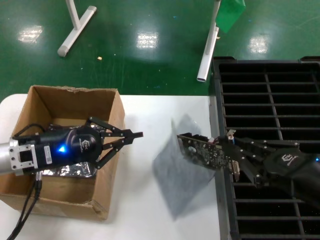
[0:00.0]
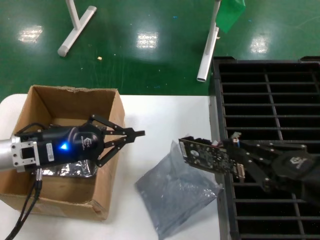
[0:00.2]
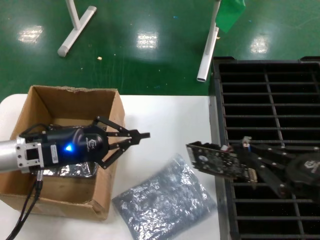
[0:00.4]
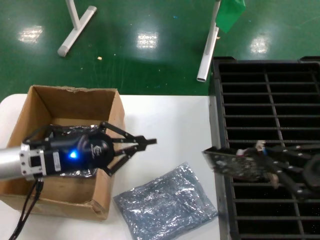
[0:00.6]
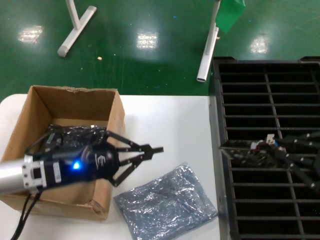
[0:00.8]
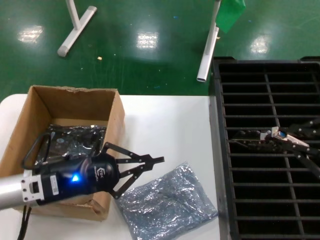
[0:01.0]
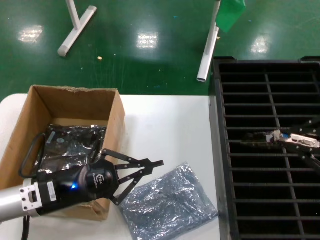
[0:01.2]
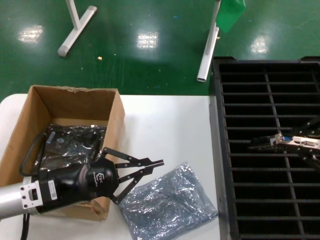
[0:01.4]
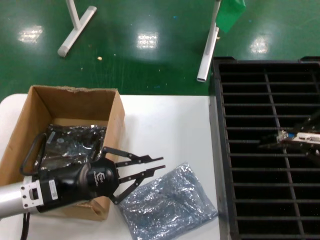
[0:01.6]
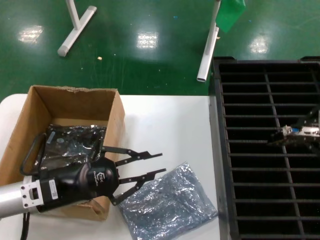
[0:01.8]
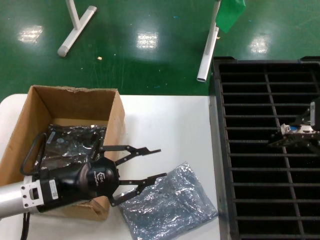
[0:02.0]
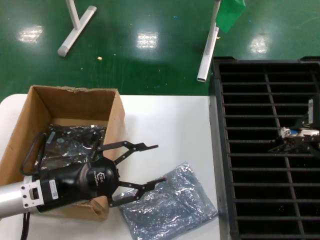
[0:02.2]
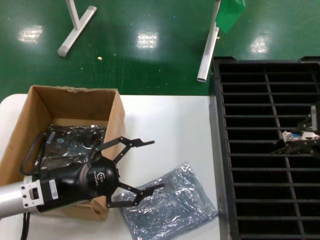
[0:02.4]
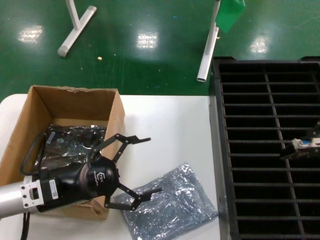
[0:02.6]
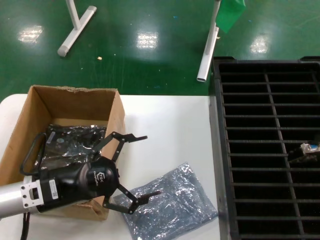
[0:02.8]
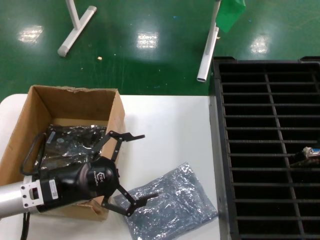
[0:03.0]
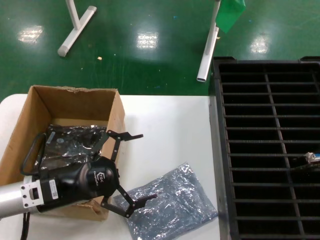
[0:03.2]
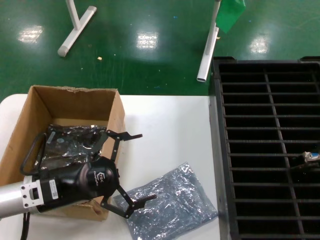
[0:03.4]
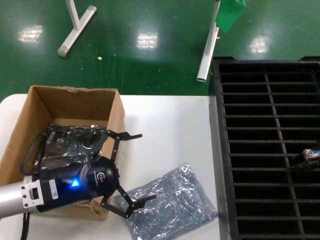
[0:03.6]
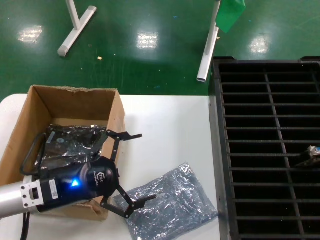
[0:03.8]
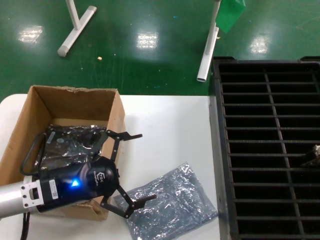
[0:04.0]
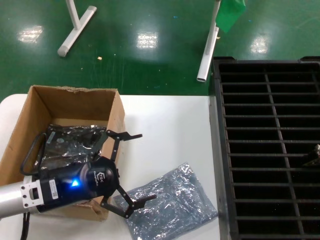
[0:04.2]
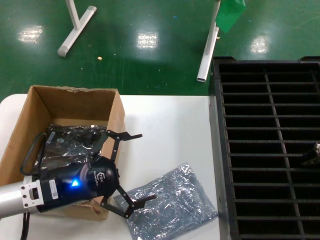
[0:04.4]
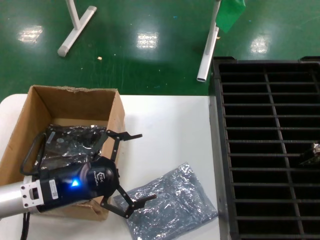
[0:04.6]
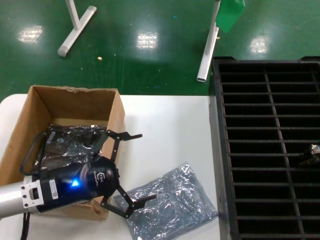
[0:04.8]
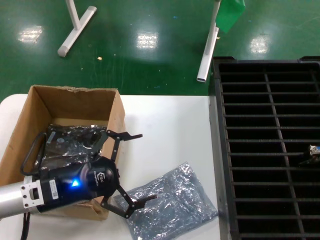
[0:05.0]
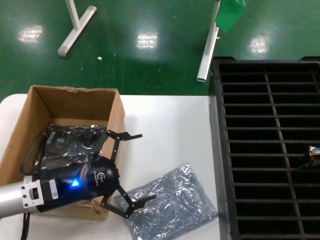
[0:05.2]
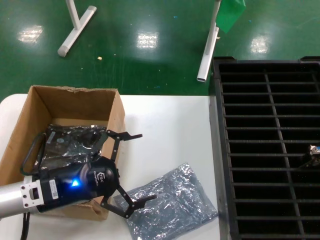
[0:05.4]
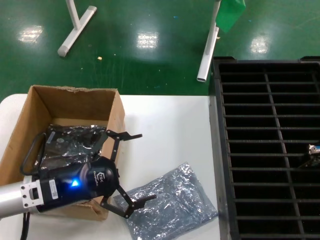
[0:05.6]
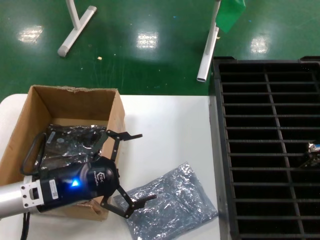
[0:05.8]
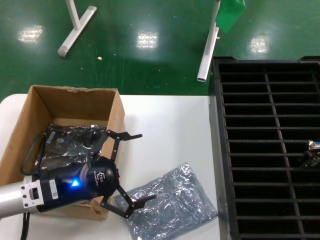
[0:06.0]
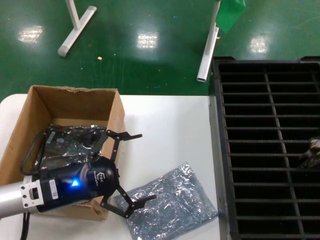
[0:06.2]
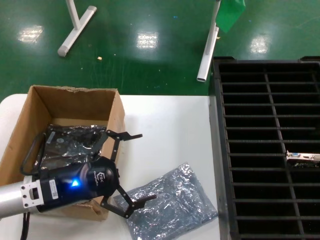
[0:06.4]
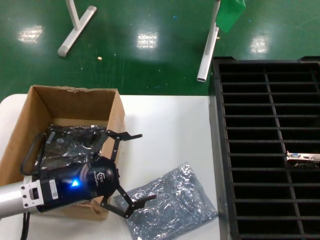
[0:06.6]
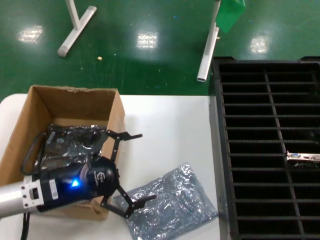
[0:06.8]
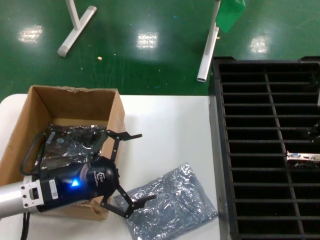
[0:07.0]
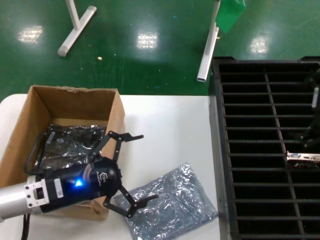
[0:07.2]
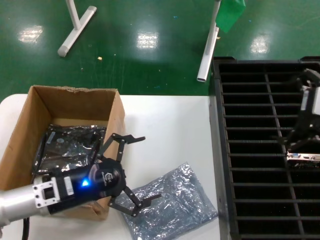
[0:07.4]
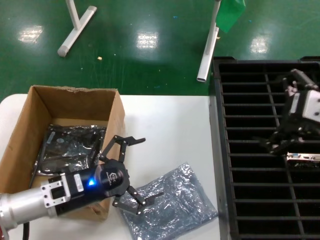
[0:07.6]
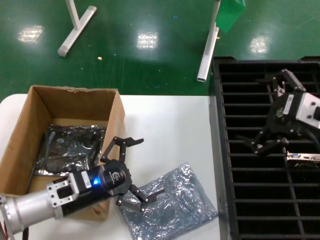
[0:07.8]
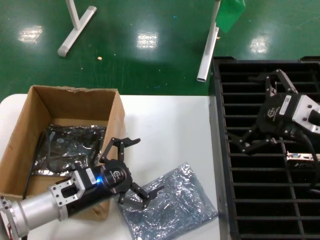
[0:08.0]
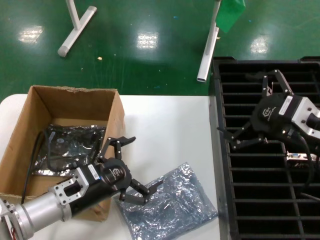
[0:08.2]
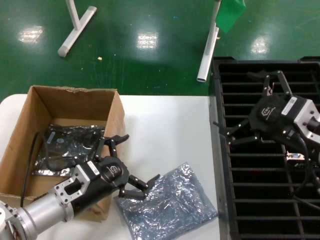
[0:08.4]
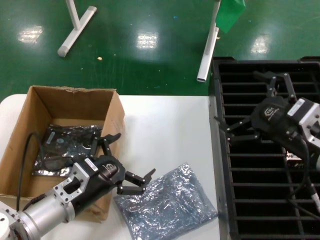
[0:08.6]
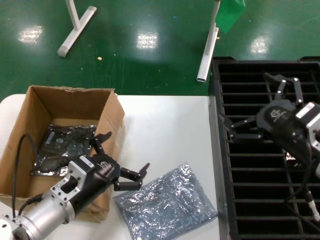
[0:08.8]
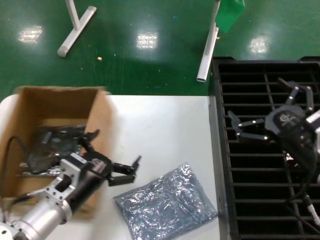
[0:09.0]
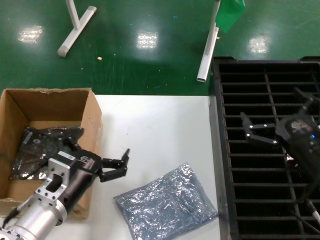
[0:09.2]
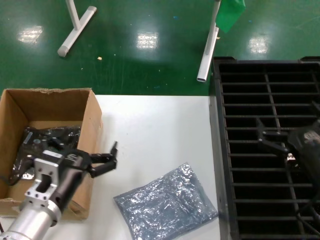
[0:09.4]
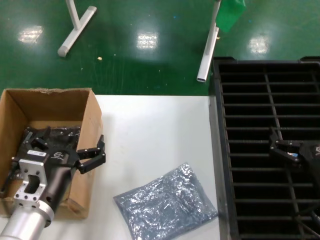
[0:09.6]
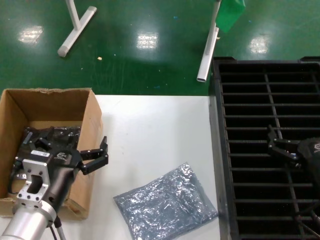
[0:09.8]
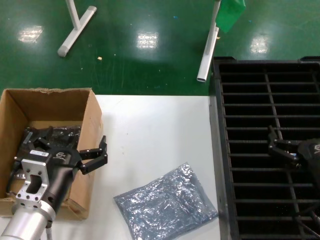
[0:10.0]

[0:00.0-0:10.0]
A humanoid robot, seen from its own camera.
Task of the whole recording: take out graphics card from box remove packaging put into black container.
Step, 0:00.6 to 0:07.0: Place the hard disk in the hard disk enclosure.
0:00.0 to 0:01.4: The right hand heads upward, covering some 10 cm; the left hand goes roughly 5 cm downward.
0:02.8 to 0:04.2: The hands stay close to where they were, moving slightly.
0:07.2 to 0:08.6: The left hand shifts roughly 5 cm to the right. The right hand moves downward, about 10 cm.
0:08.6 to 0:10.0: The right hand moves downward, approximately 10 cm; the left hand moves backward, approximately 5 cm.
